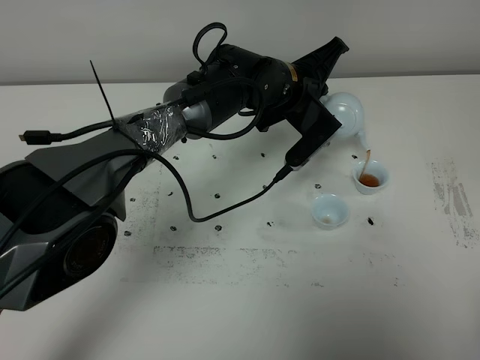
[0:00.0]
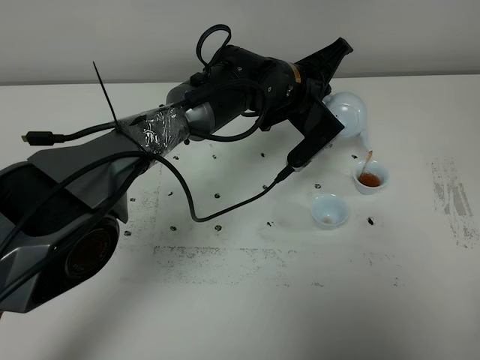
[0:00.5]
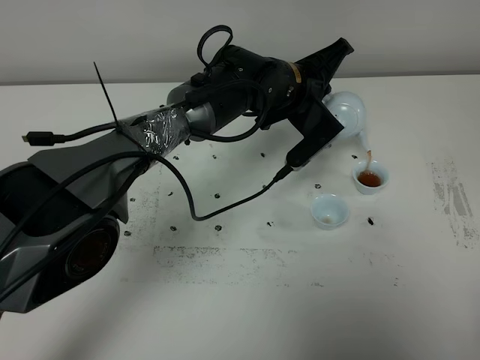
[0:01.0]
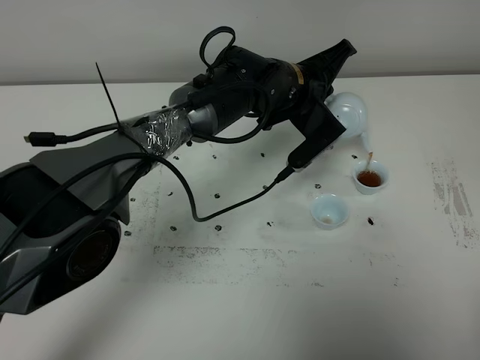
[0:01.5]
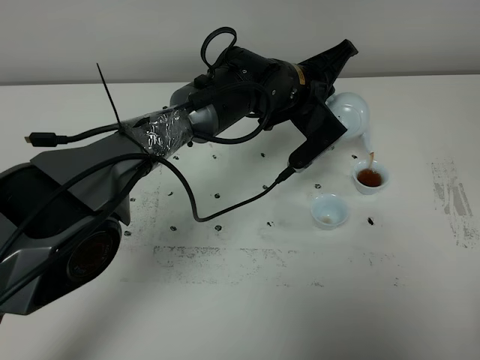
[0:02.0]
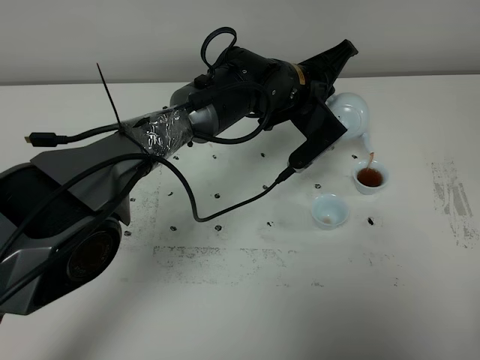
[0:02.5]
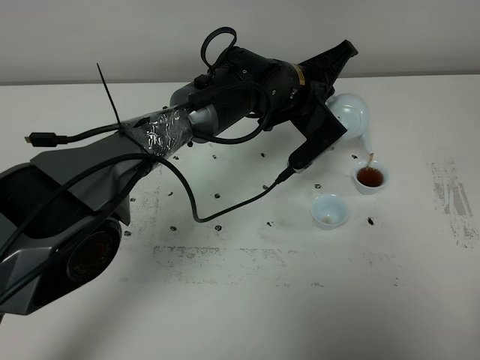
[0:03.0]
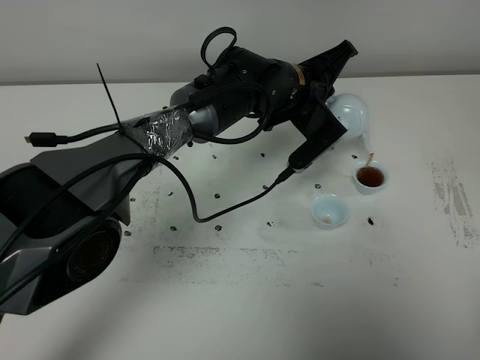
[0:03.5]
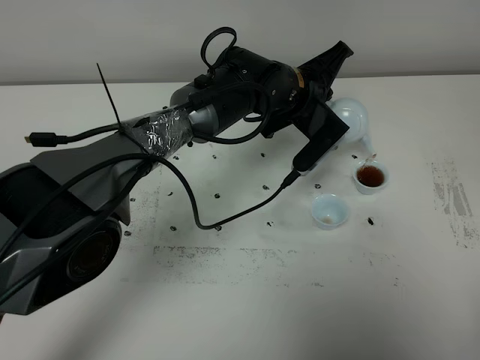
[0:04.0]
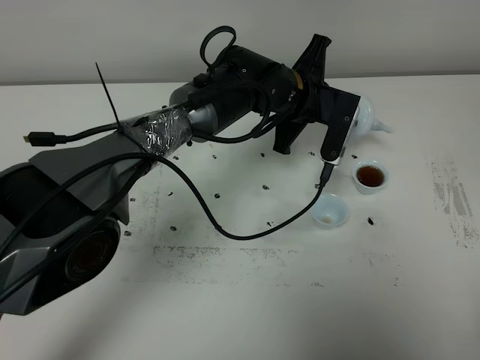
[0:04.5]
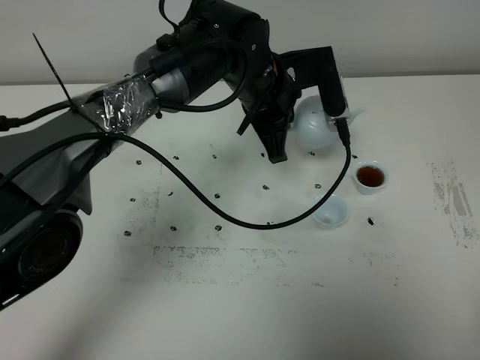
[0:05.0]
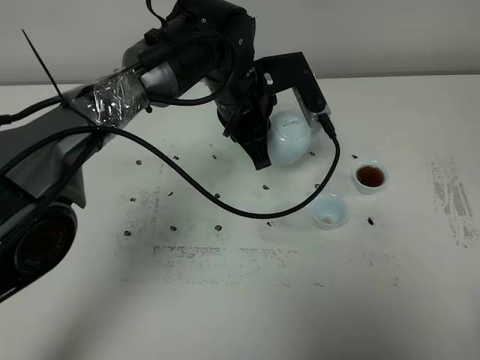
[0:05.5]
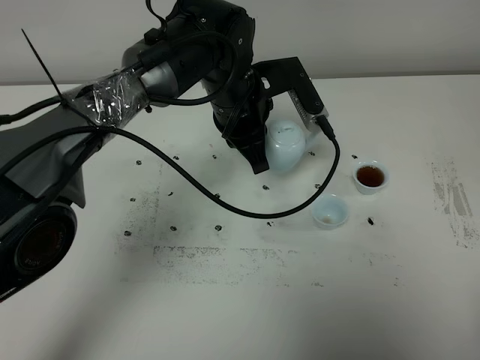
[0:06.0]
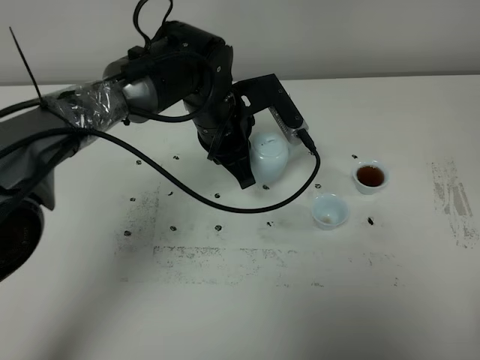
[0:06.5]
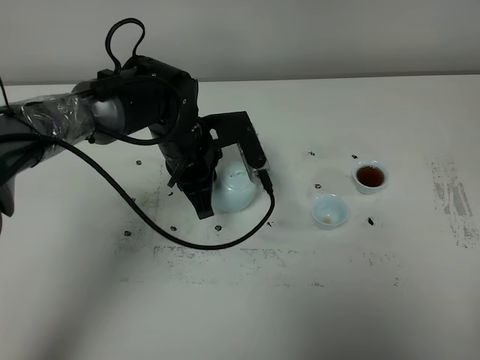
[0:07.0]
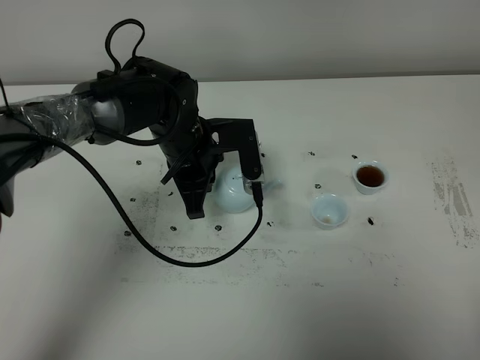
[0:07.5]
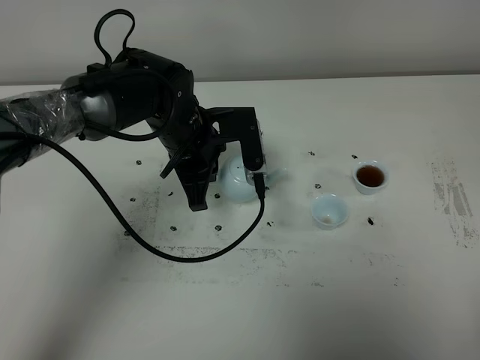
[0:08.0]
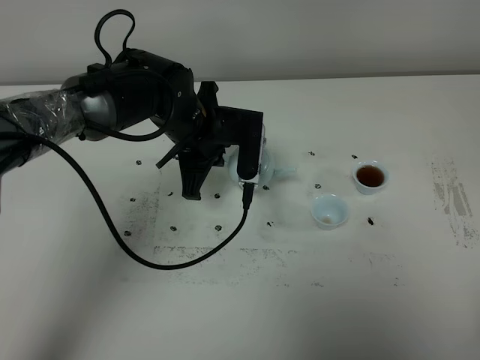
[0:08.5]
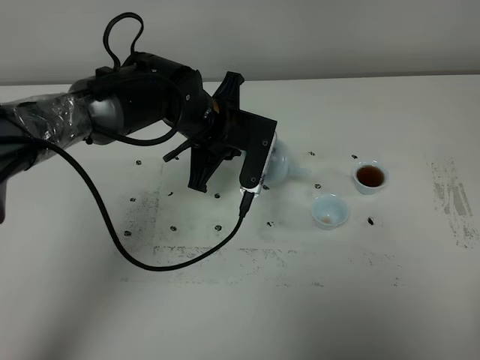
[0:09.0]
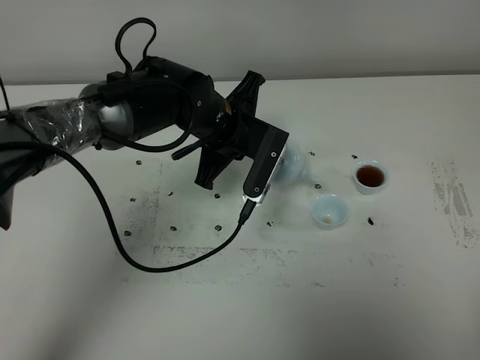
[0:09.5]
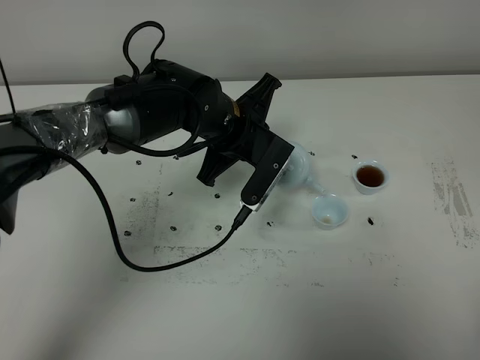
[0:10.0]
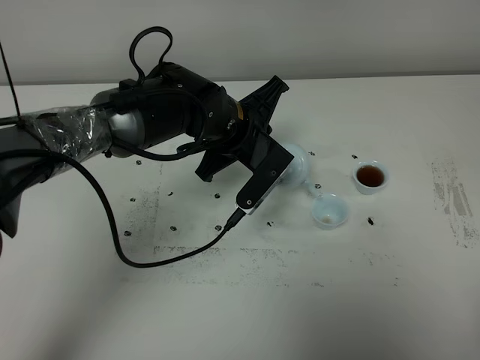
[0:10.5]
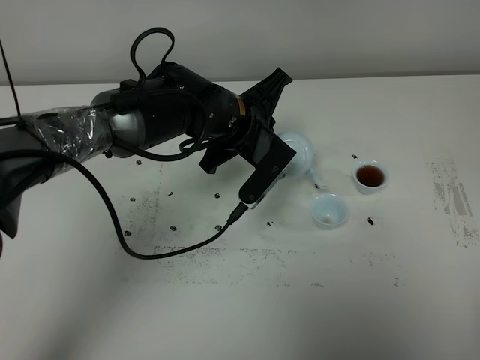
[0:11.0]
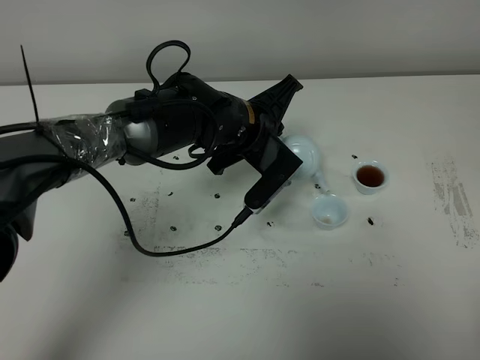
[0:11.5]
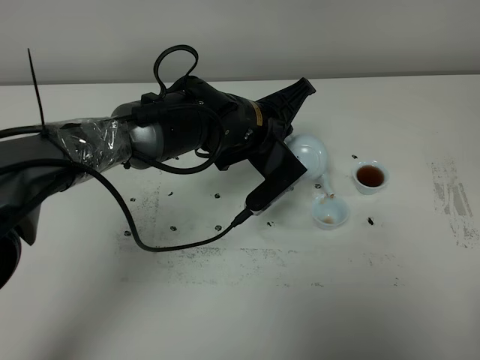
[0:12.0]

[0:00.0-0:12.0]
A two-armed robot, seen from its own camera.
Task of the whole recording: grasp the blue porcelain teapot and pour the tea into the two blue porcelain teacups one by one, put the blue porcelain teapot back in its original place.
0:00.0 to 0:02.0: Neither gripper changes place.
0:02.0 to 0:04.0: The grippers make only small movements.
0:04.0 to 0:06.0: The left gripper shifts about 5 cm to the left.
0:06.0 to 0:08.0: The left gripper shifts approximately 5 cm to the left.

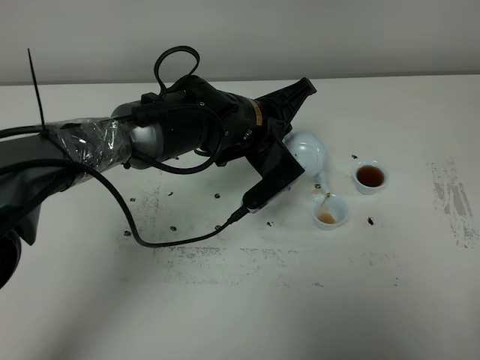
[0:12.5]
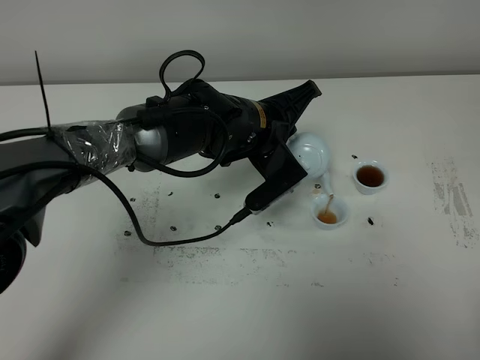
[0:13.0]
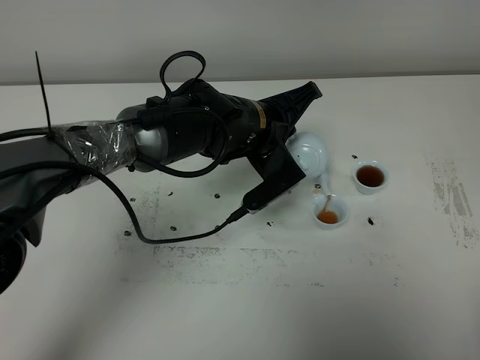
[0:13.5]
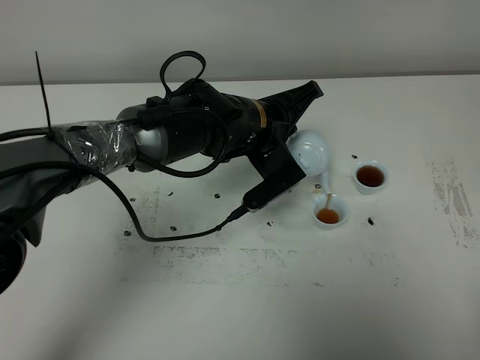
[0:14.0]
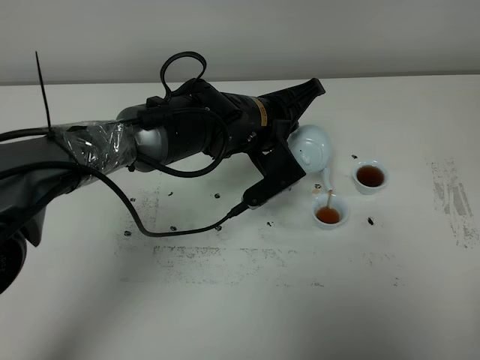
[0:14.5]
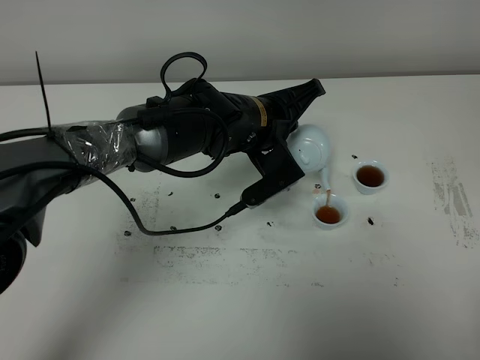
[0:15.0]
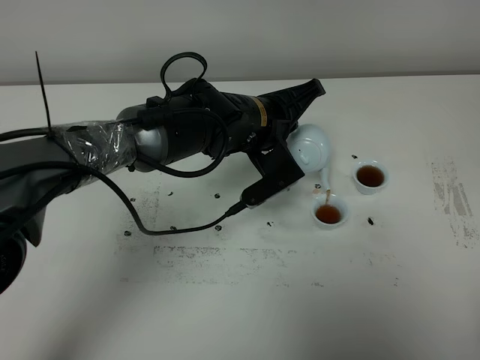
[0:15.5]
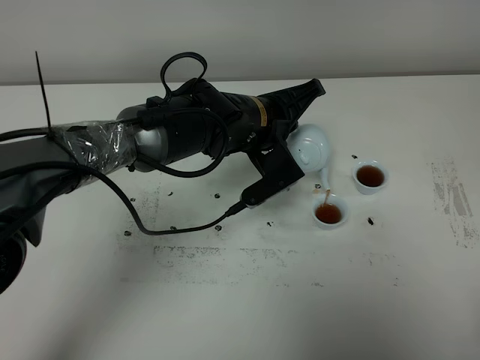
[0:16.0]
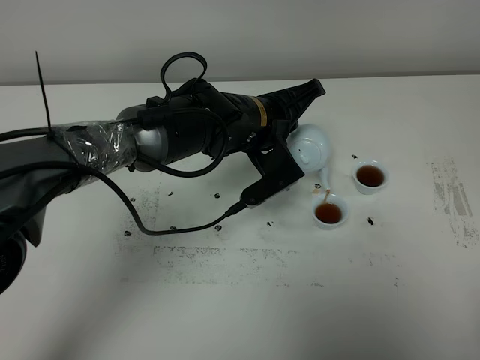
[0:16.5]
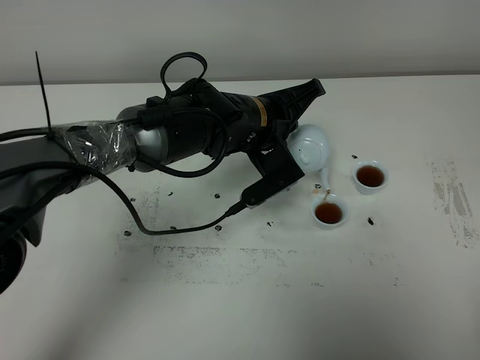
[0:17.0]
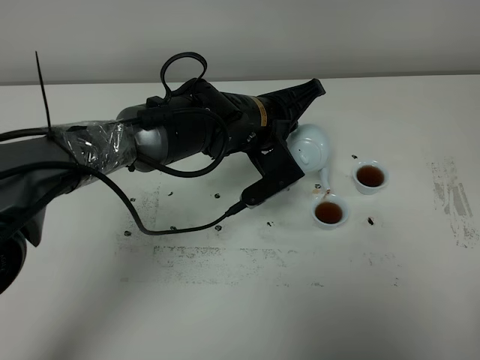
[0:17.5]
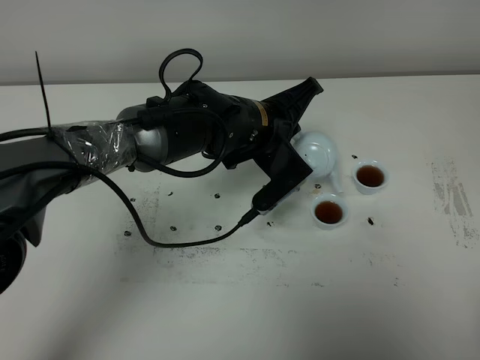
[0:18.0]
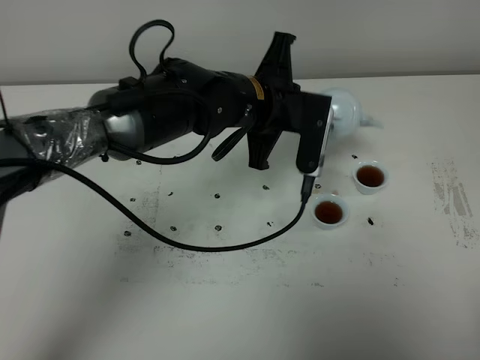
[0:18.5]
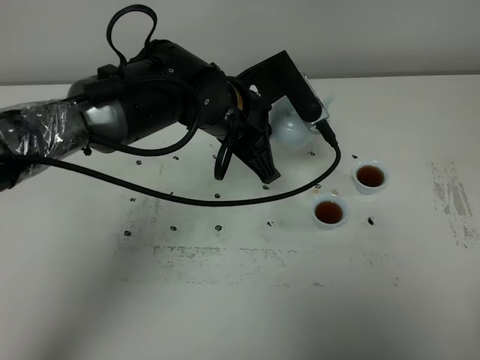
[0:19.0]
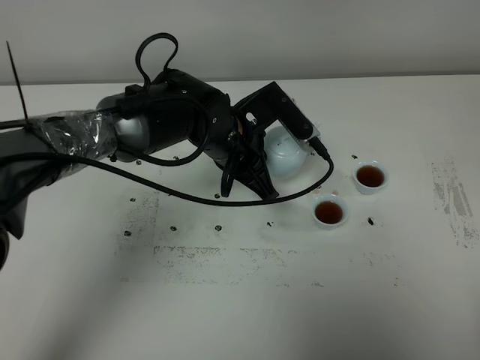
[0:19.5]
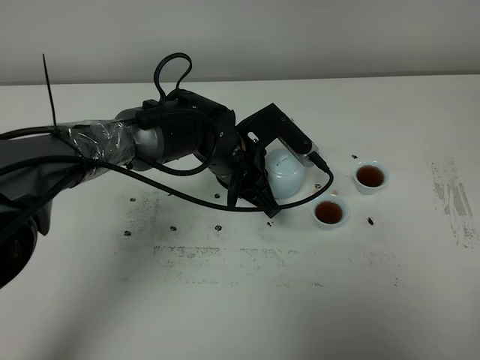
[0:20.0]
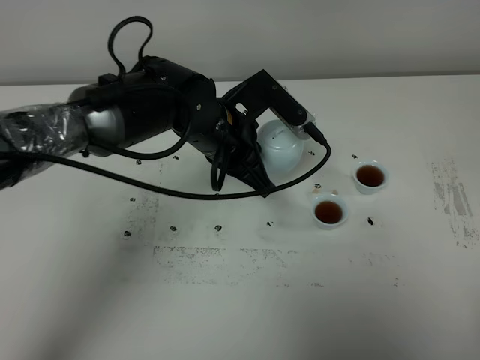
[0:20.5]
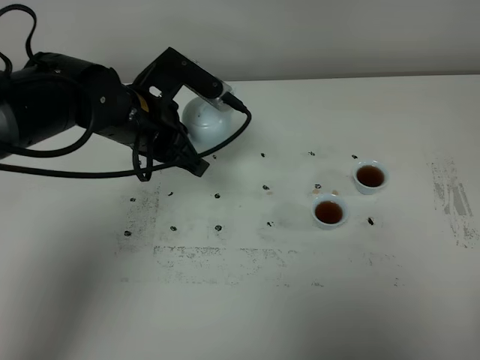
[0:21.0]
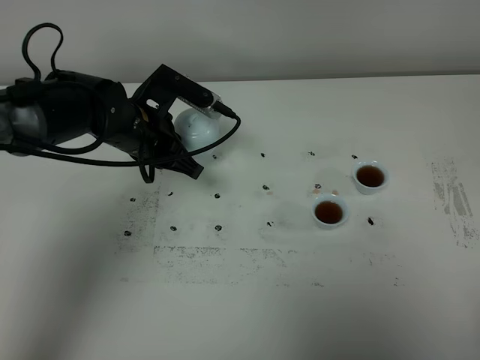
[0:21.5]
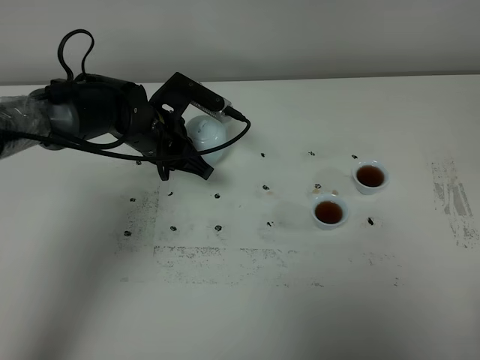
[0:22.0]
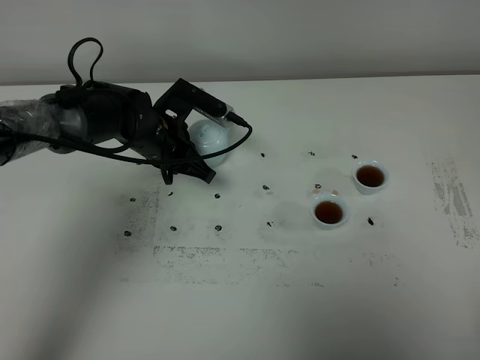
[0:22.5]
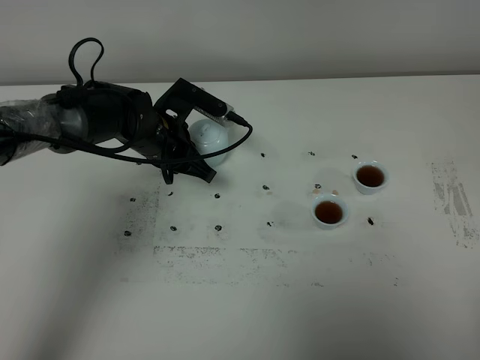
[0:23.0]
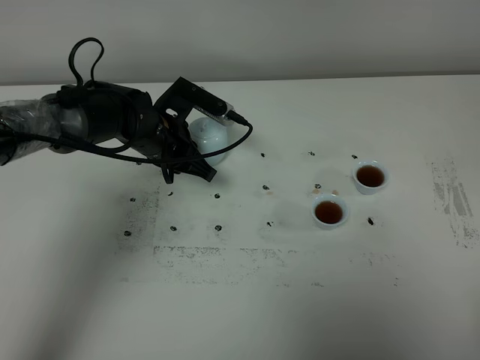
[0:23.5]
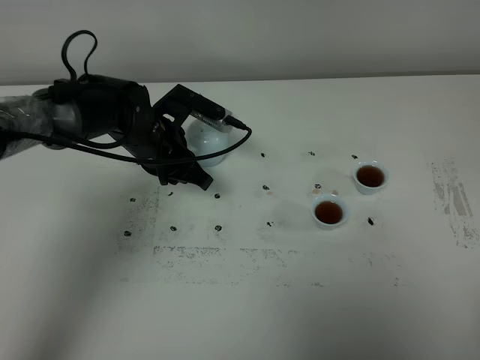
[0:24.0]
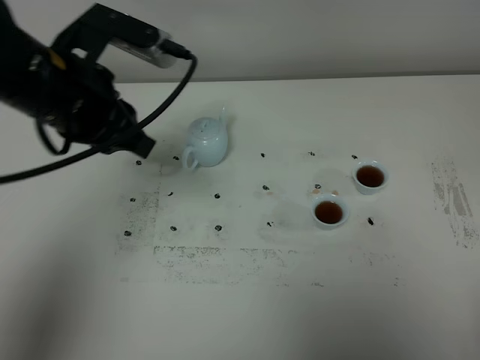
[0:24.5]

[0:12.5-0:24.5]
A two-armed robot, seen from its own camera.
Task of the whole recording: grasp the blue porcelain teapot and pour the tea into the two blue porcelain teacups one by one, put the blue porcelain teapot back in its original place.
0:12.5 to 0:14.5: The grippers stay close to where they were, moving slightly.
0:14.5 to 0:16.5: Both grippers stay put.
0:16.5 to 0:18.5: The left gripper heads upward, covering approximately 5 cm.
0:18.5 to 0:20.5: The left gripper goes downward and returns, about 10 cm each way.
0:20.5 to 0:22.5: The left gripper goes some 15 cm to the left, downward and forward.
0:22.5 to 0:24.5: The left gripper heads upward and backward, covering some 20 cm.

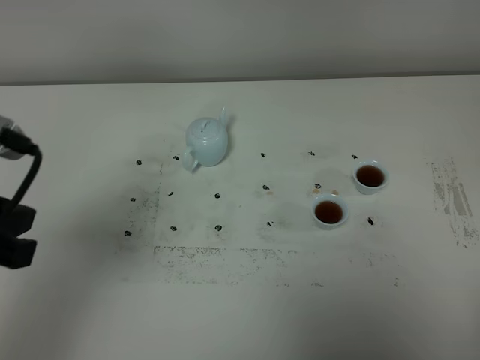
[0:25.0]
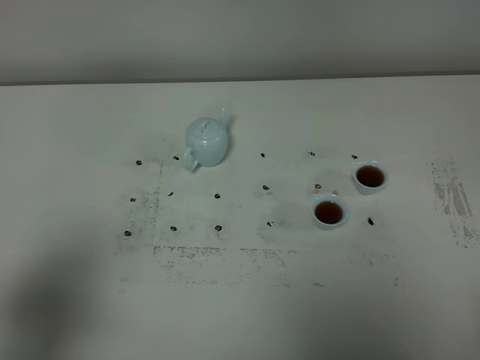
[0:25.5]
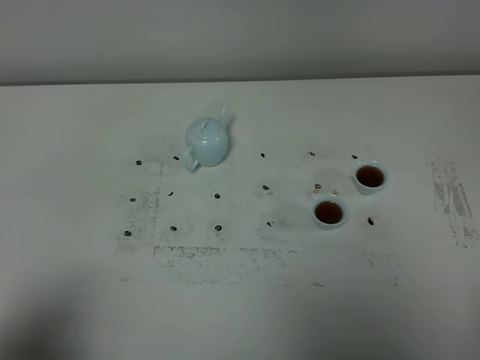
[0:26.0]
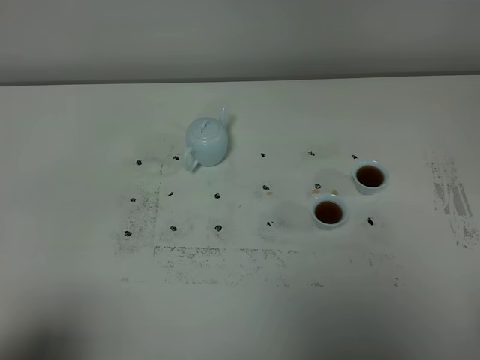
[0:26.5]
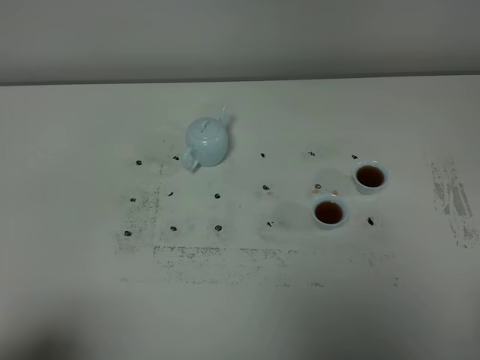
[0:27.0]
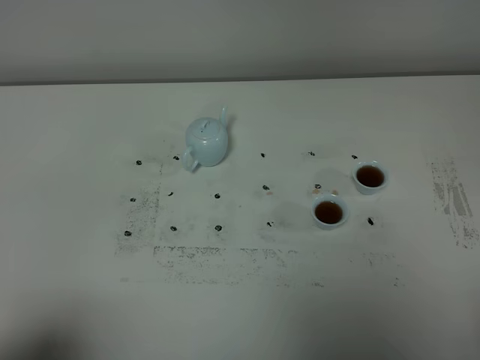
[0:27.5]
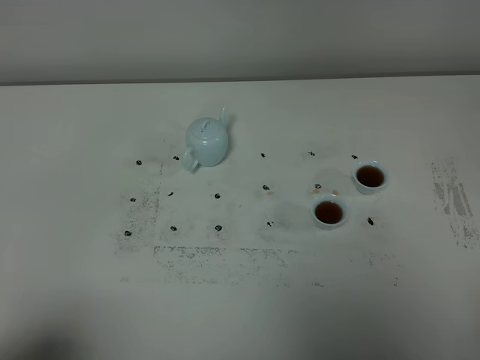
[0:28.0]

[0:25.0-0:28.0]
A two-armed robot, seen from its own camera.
Task of the whole recording: grasp the blue porcelain teapot and pour the tea into the two blue porcelain teacups one by one, put the blue porcelain teapot back in its original place.
0:25.0 to 0:26.5: The left gripper moves backward and downward, roughly 15 cm.
0:26.5 to 0:28.0: The two grippers keep their place.
